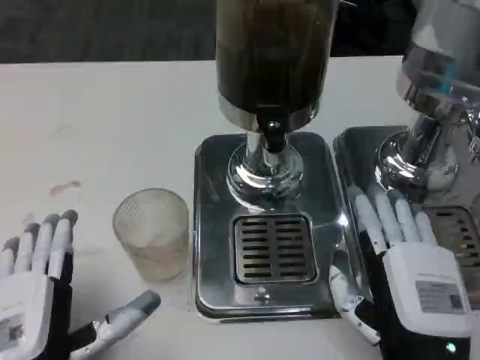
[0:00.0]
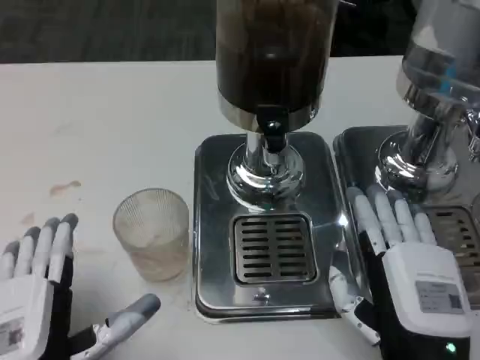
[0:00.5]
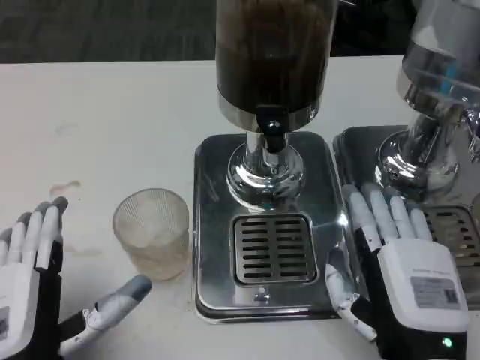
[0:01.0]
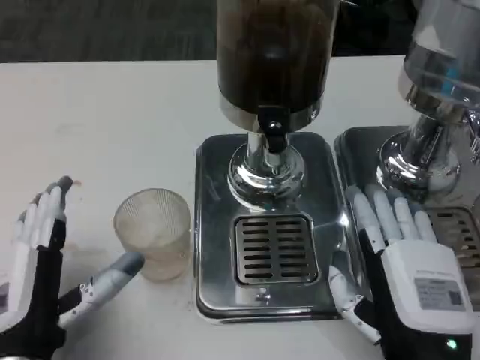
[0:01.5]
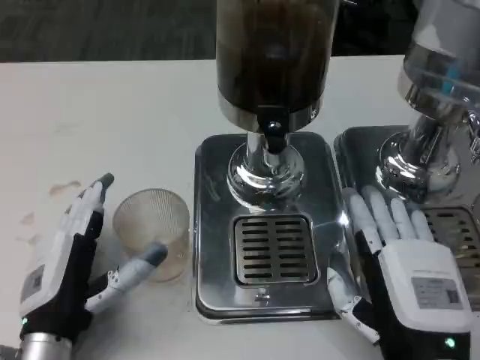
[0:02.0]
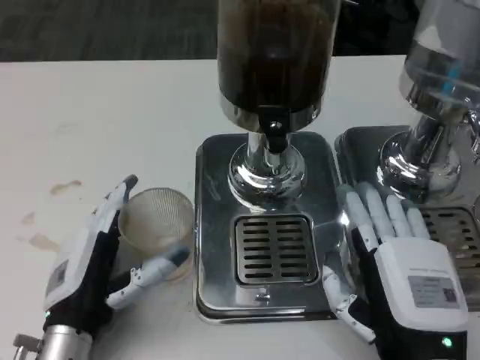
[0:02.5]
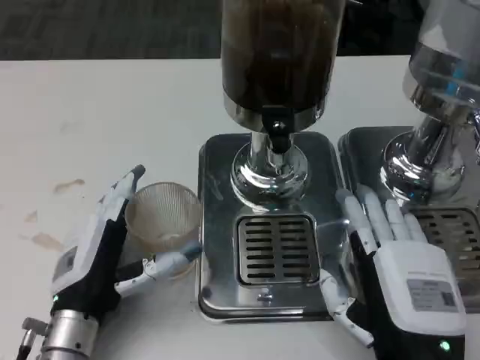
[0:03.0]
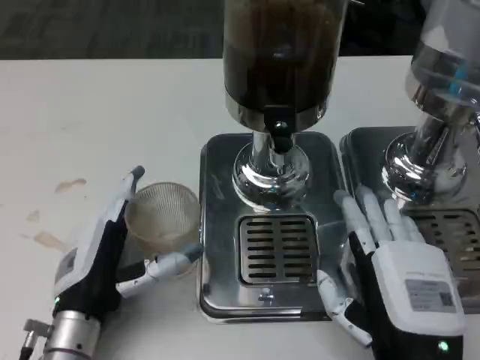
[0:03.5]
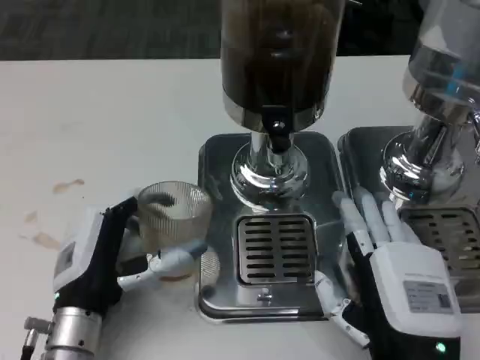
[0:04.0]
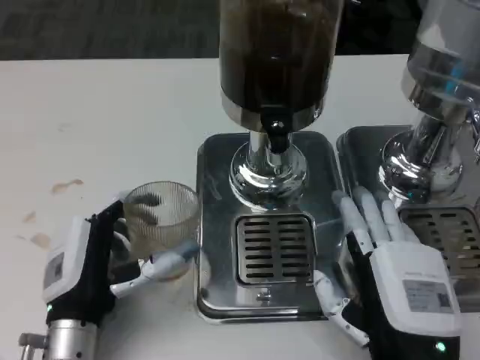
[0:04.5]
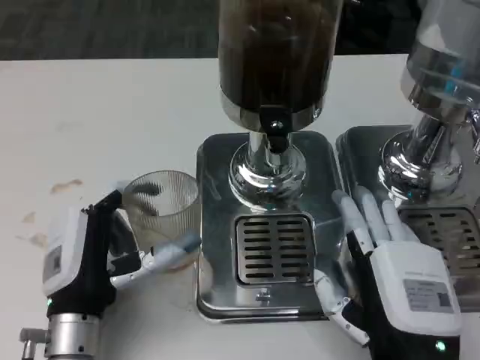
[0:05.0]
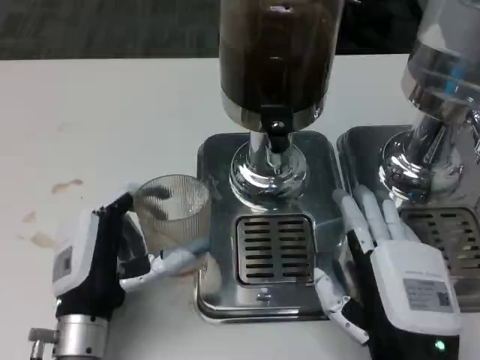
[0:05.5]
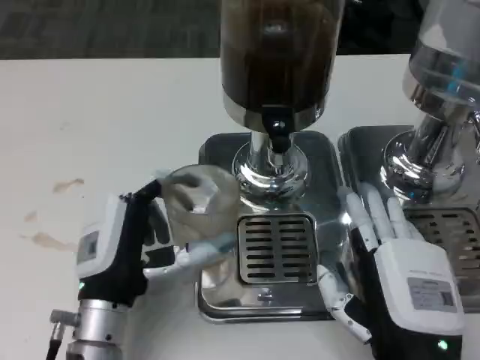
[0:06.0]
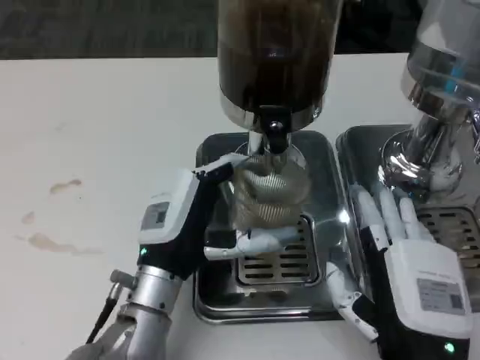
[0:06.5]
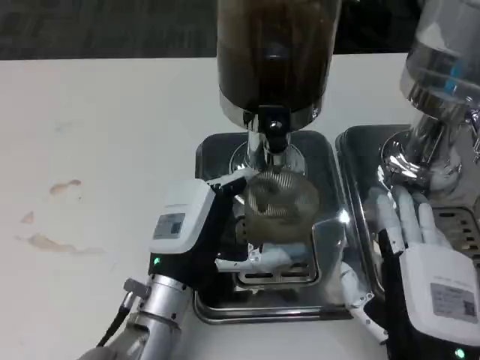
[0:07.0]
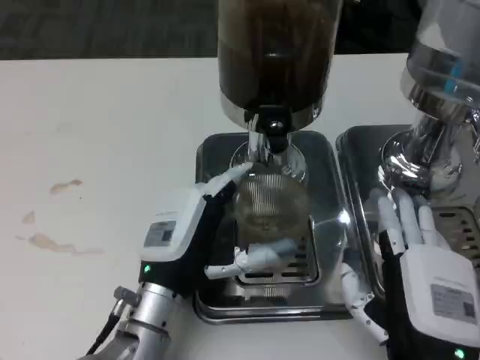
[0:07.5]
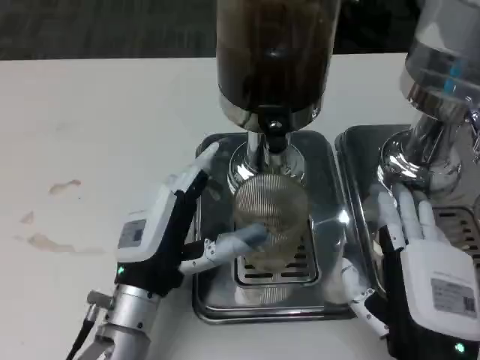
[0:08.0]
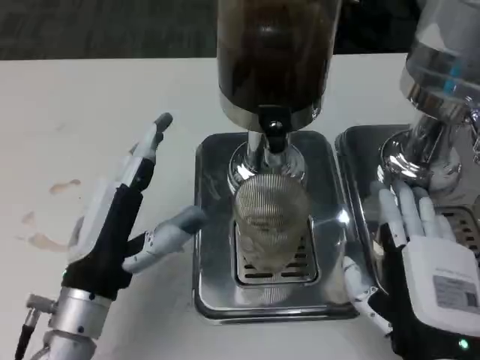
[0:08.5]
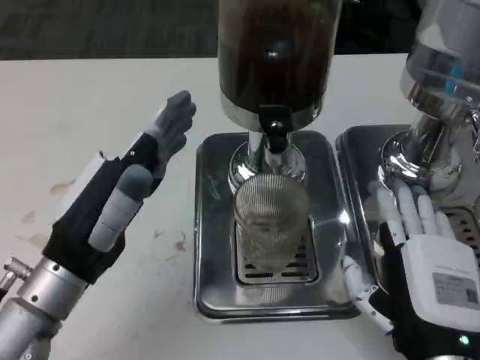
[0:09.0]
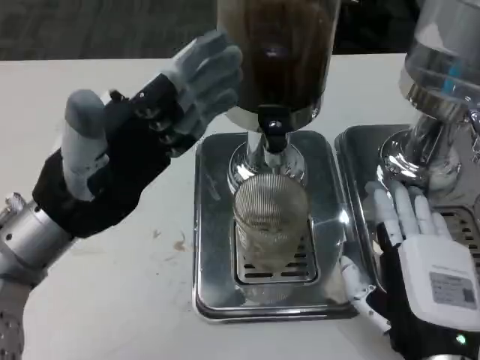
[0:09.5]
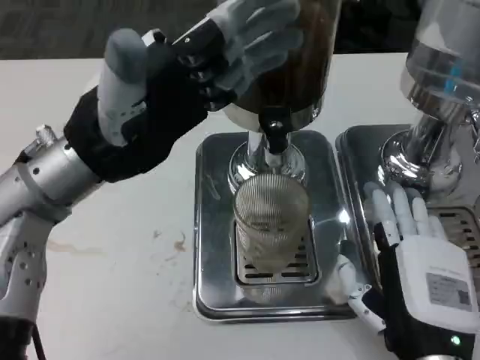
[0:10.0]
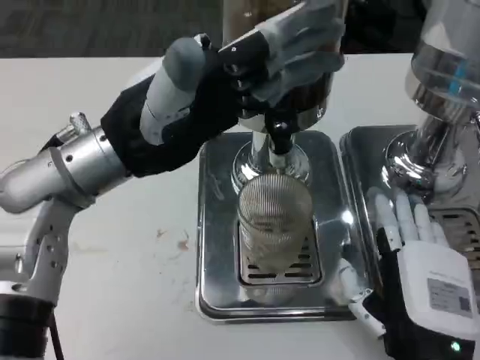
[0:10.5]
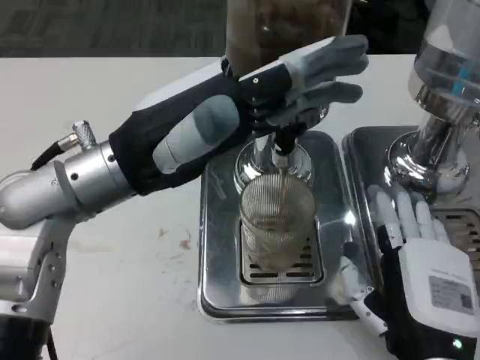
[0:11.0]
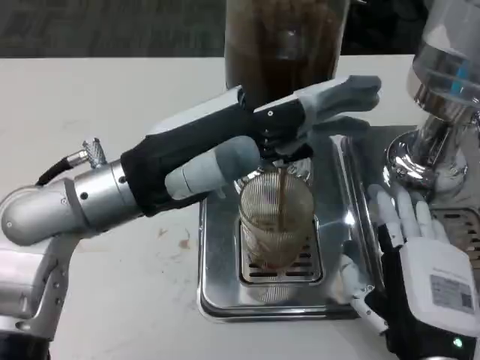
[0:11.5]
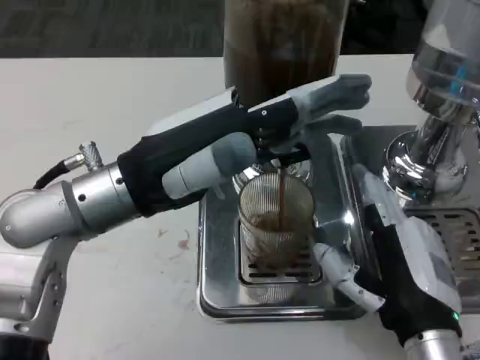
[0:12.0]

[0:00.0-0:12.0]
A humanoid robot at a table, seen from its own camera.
Task of the whole recording: Grasp the cup under the faucet to collect the drink, then remove the cup.
0:00.0 to 0:02.0: The left hand goes approximately 5 cm forward.
0:04.0 to 0:06.0: The hands move only a little.
0:08.0 to 0:10.0: The left hand travels upward by about 20 cm.

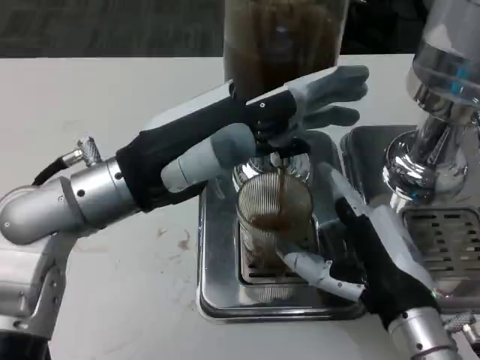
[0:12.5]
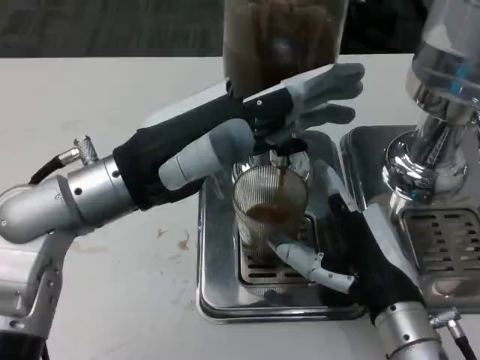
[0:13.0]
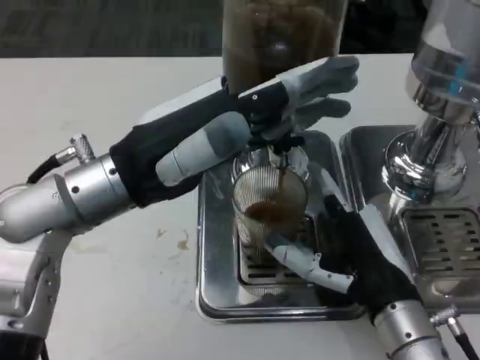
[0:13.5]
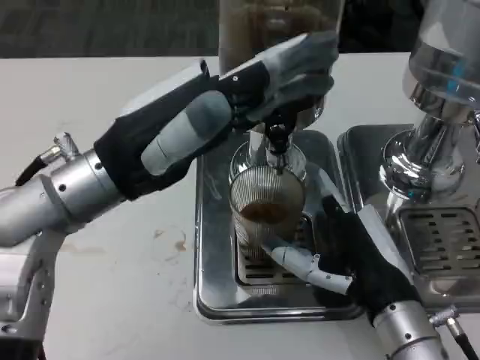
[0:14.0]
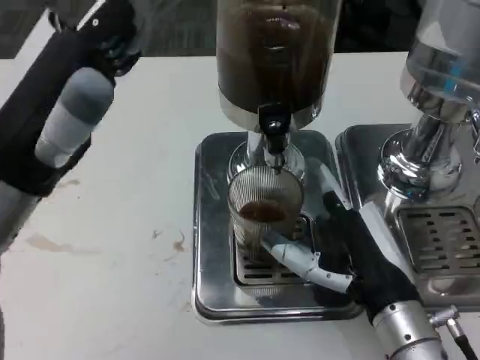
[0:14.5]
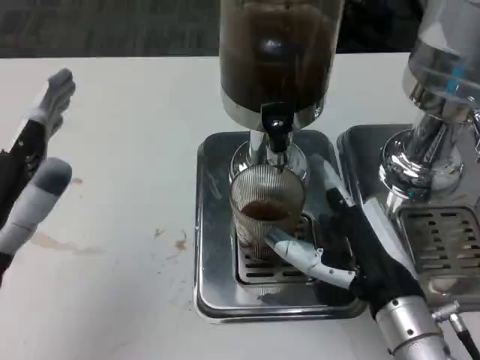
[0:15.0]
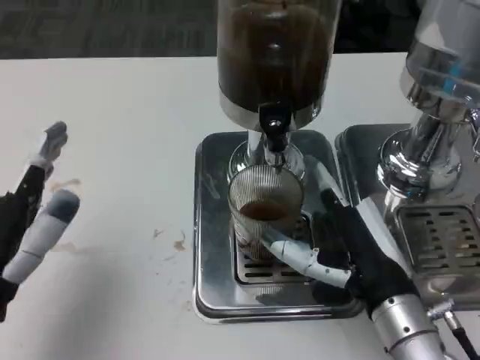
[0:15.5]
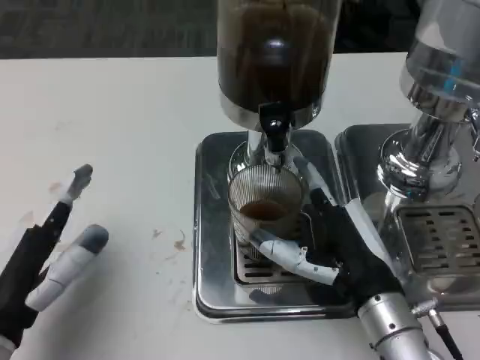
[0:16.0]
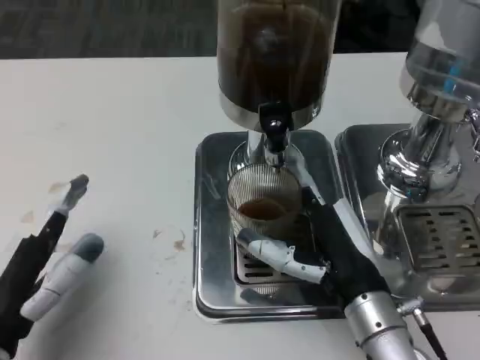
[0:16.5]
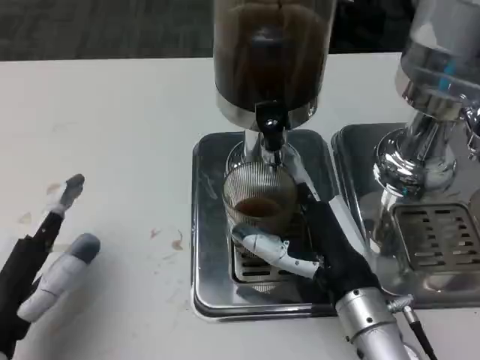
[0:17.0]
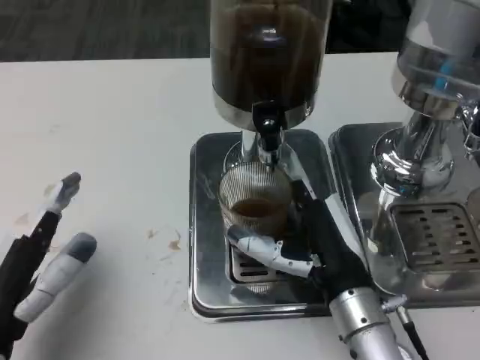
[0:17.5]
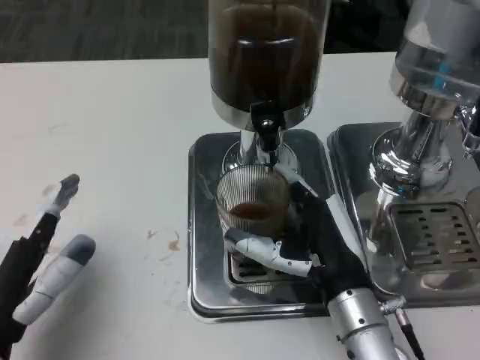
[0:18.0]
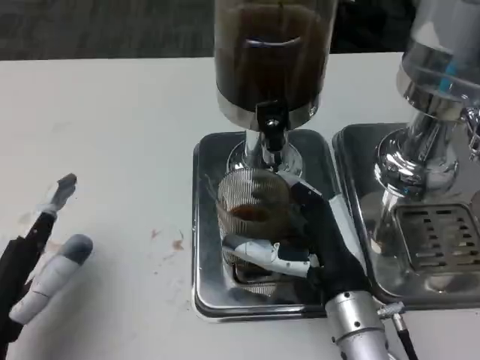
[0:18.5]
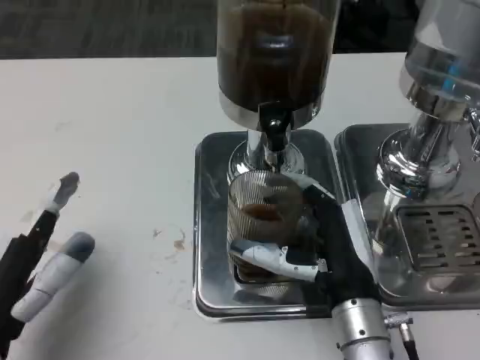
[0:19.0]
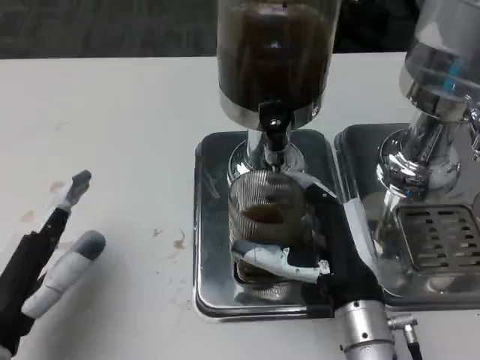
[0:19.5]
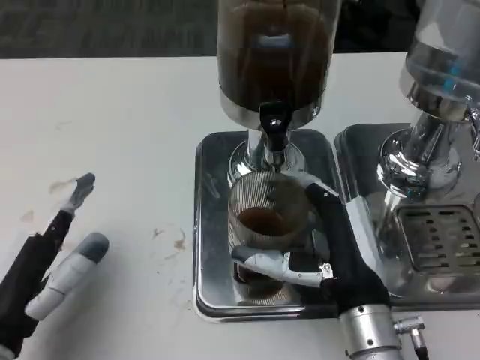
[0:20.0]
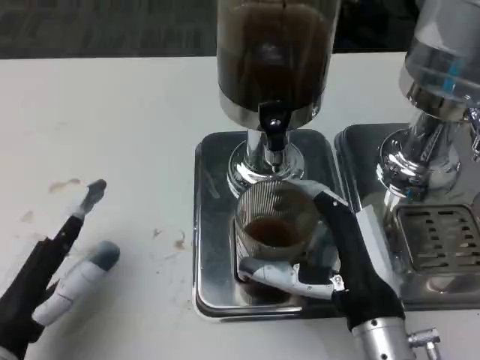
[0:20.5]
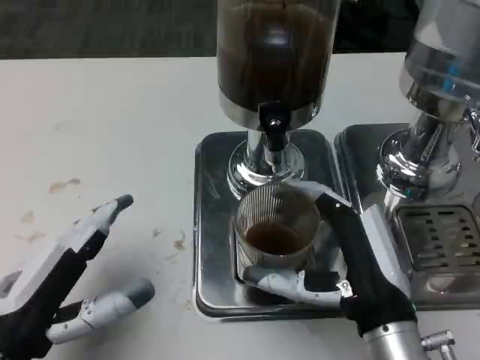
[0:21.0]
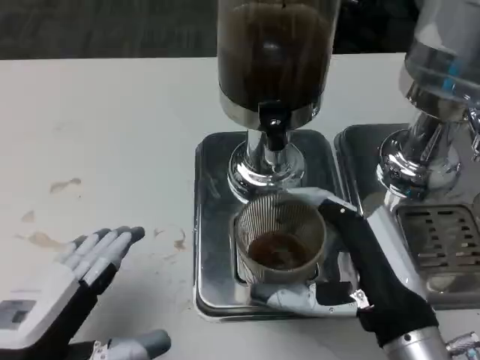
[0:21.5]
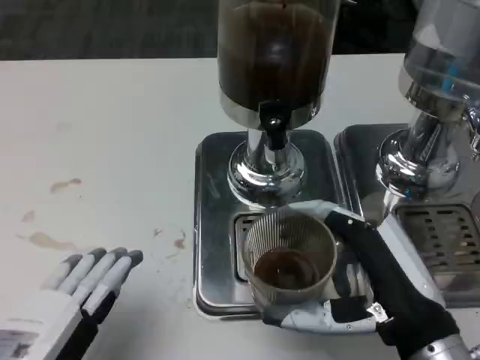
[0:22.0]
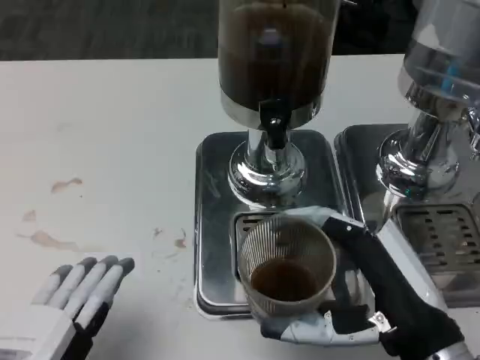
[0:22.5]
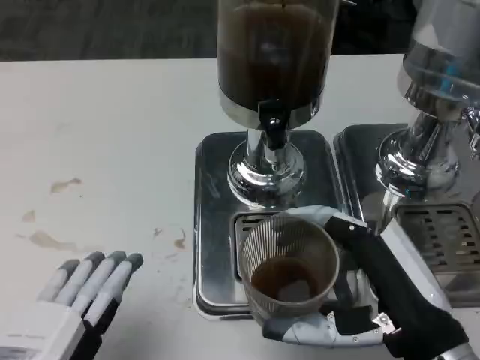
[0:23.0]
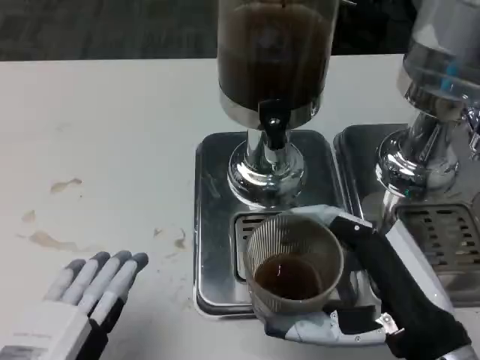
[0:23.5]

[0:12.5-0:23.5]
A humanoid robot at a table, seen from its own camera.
Task of the whole recording: Grasp the cup under the faucet to collect the drink, then remove the cup.
0:12.5 to 0:14.5: The left hand is displaced to the left by approximately 5 cm.
0:14.5 to 0:16.0: The left hand heads downward and backward, covering about 15 cm.
0:20.0 to 0:21.5: The left hand ends up some 5 cm from where it was, while the right hand changes place by about 5 cm.
0:21.5 to 0:23.5: The left hand moves about 5 cm.

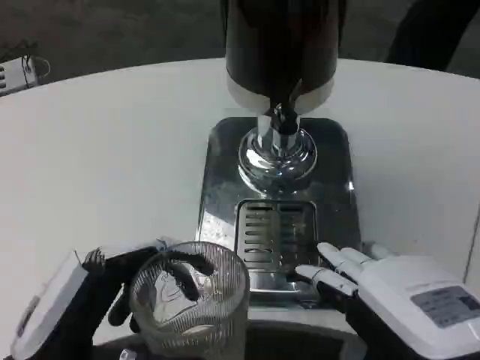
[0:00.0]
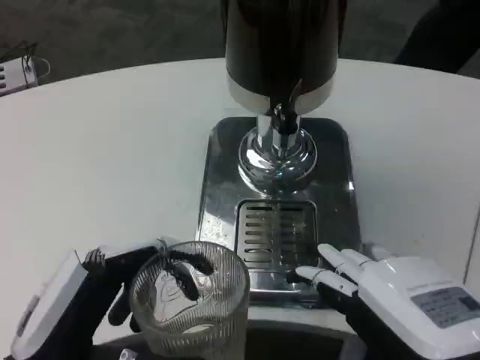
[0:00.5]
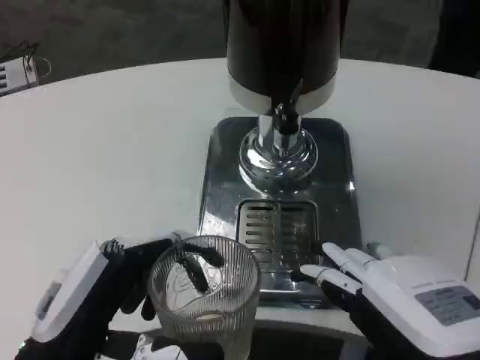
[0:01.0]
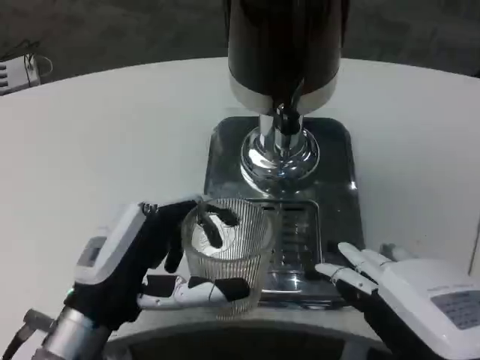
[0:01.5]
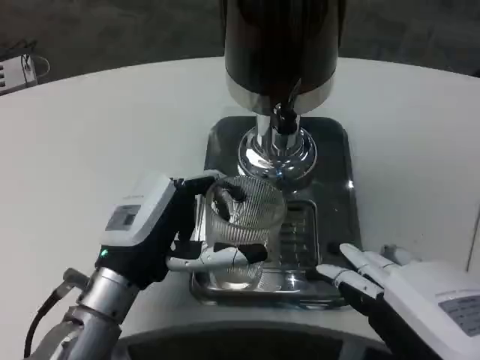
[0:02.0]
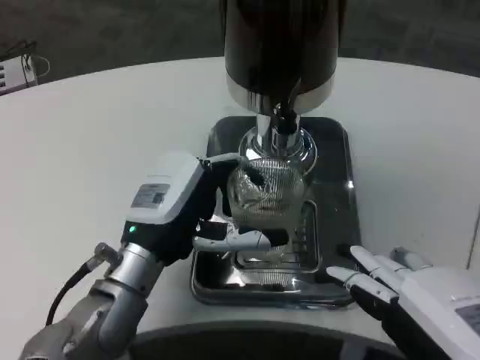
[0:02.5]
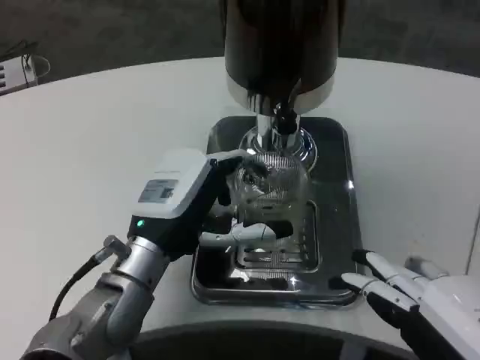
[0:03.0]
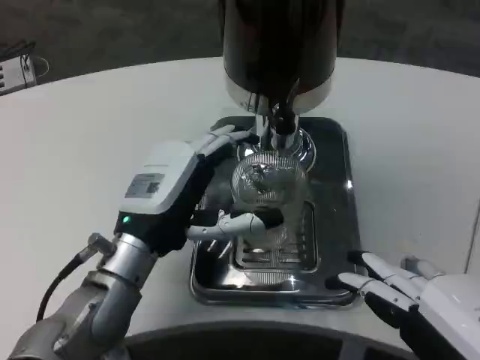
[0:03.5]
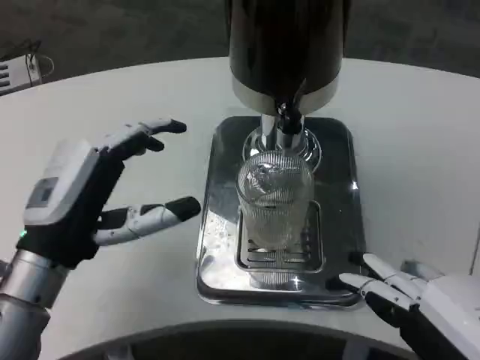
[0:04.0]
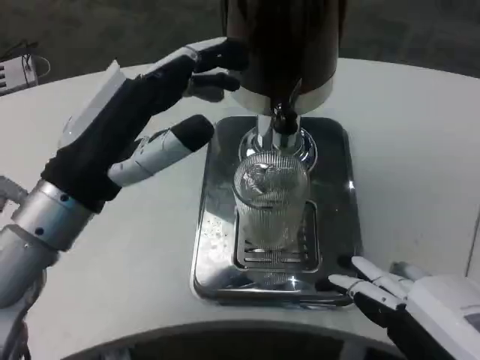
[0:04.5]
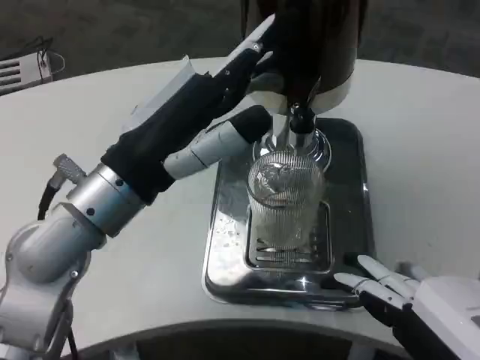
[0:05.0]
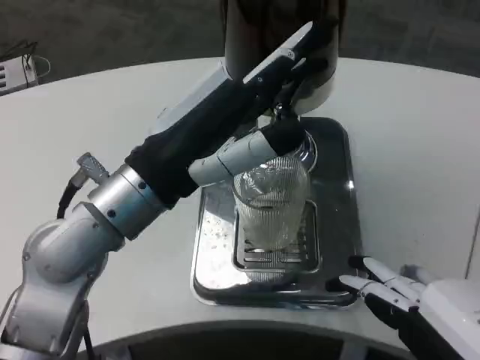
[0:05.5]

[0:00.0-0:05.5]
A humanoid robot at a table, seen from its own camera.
Task of the whole recording: Grasp the cup under the faucet to collect the drink, then remove the cup.
0:00.0 to 0:02.0: The left hand travels forward by approximately 15 cm.
0:03.5 to 0:05.5: The left hand is displaced upward by roughly 10 cm.
